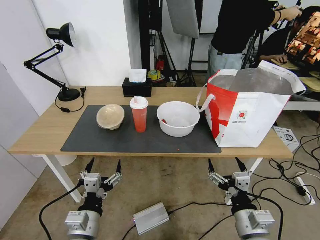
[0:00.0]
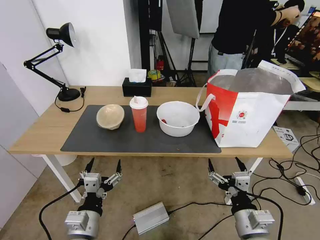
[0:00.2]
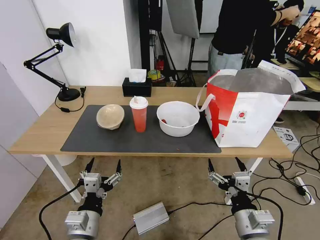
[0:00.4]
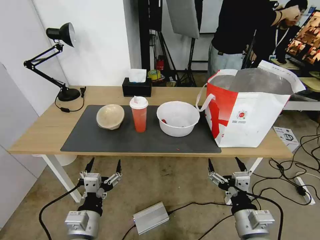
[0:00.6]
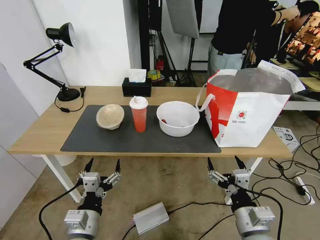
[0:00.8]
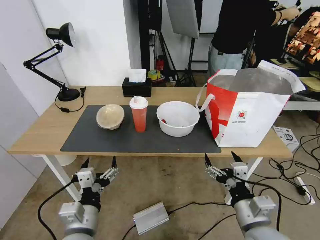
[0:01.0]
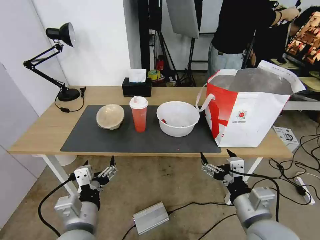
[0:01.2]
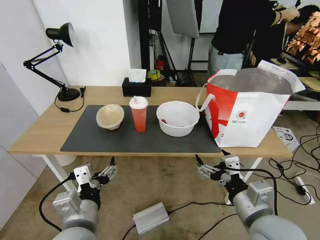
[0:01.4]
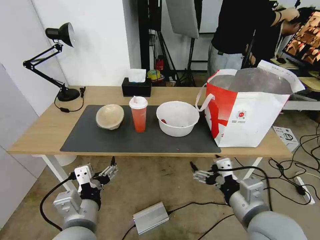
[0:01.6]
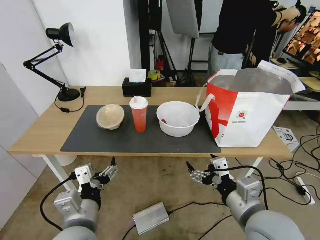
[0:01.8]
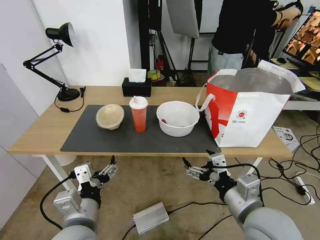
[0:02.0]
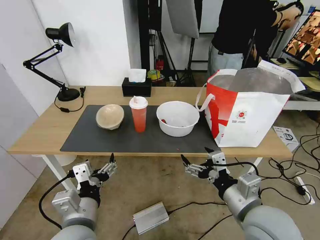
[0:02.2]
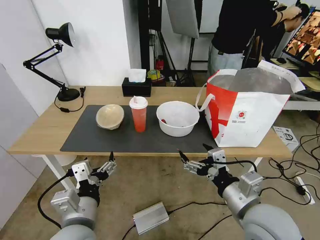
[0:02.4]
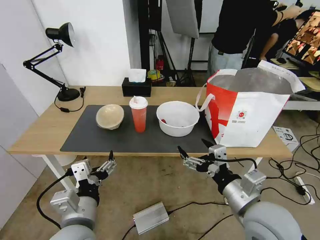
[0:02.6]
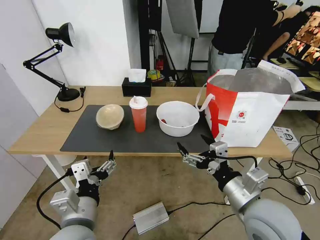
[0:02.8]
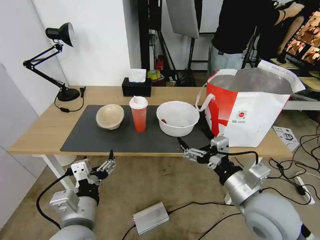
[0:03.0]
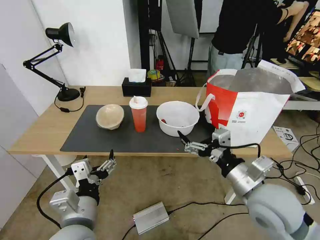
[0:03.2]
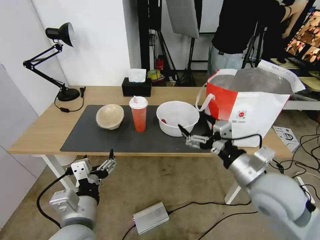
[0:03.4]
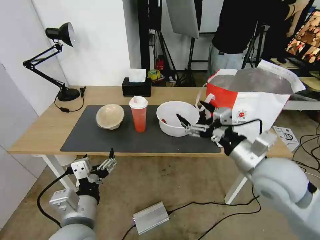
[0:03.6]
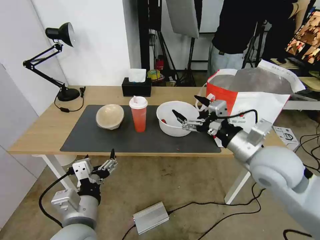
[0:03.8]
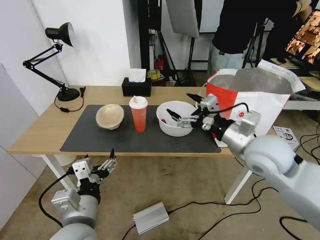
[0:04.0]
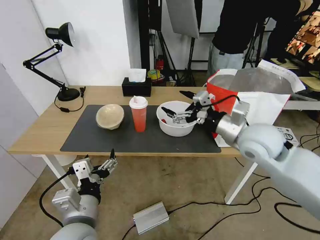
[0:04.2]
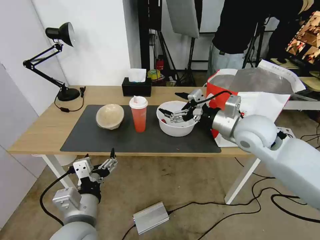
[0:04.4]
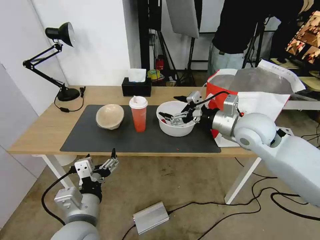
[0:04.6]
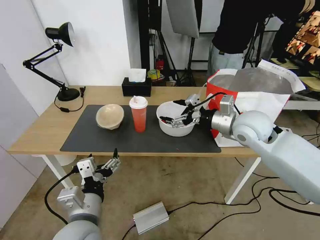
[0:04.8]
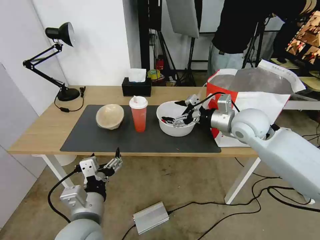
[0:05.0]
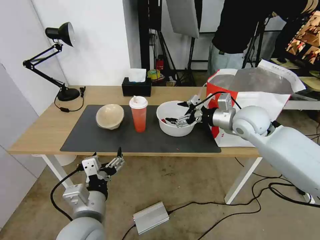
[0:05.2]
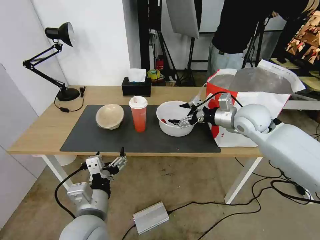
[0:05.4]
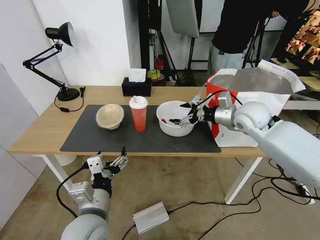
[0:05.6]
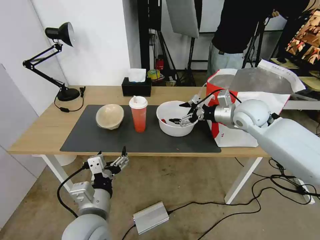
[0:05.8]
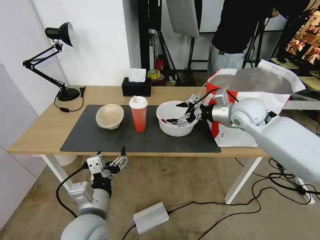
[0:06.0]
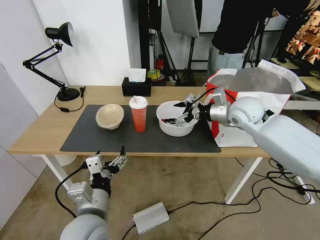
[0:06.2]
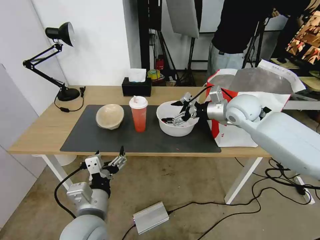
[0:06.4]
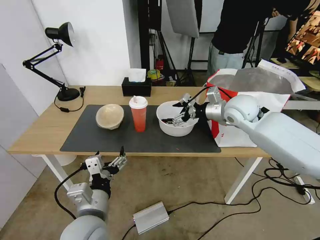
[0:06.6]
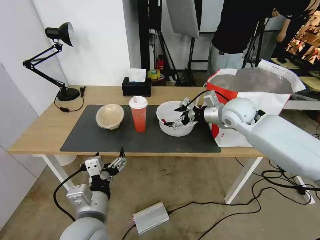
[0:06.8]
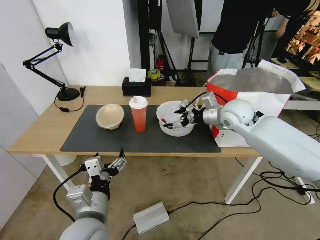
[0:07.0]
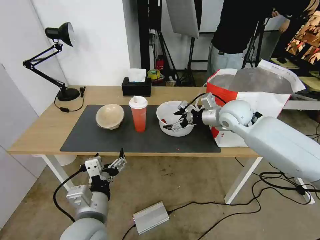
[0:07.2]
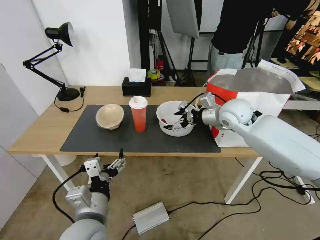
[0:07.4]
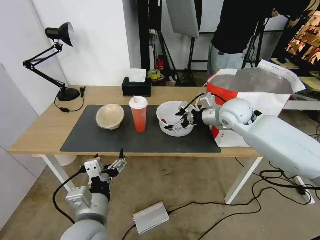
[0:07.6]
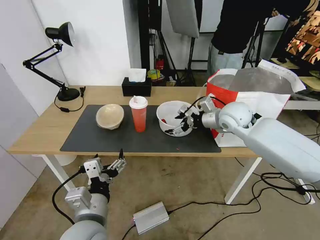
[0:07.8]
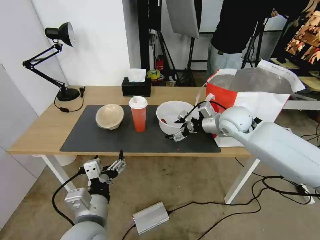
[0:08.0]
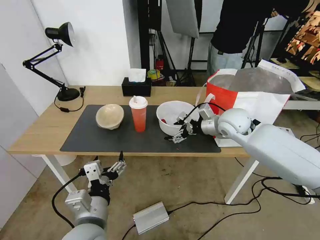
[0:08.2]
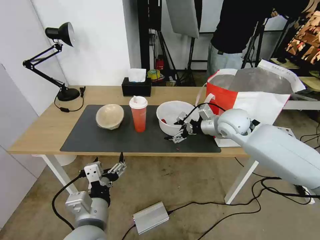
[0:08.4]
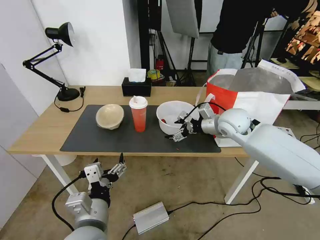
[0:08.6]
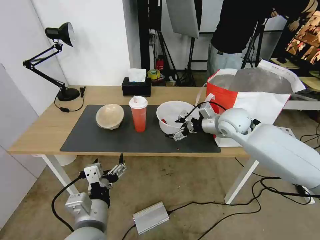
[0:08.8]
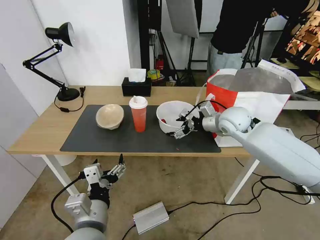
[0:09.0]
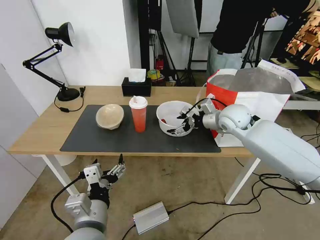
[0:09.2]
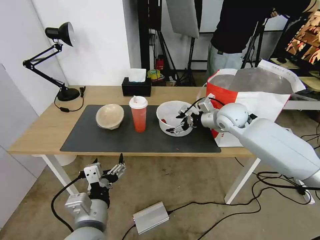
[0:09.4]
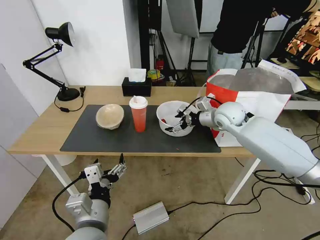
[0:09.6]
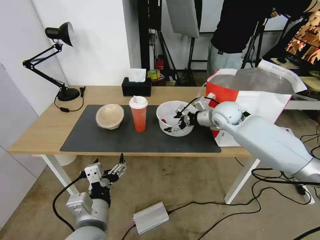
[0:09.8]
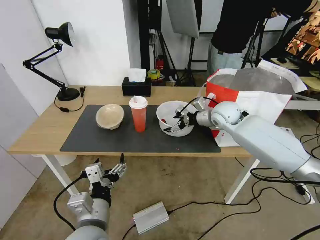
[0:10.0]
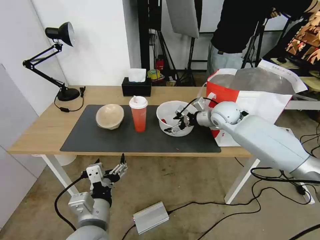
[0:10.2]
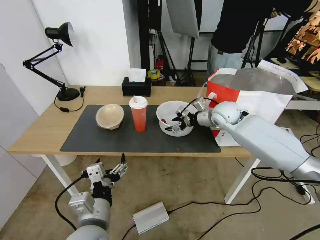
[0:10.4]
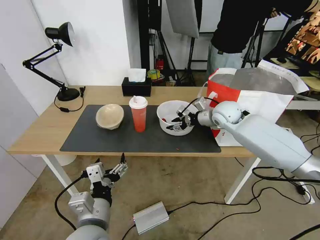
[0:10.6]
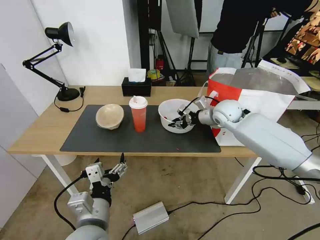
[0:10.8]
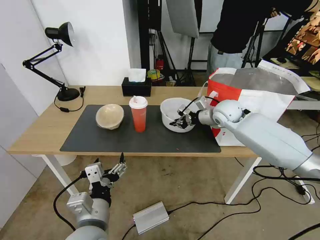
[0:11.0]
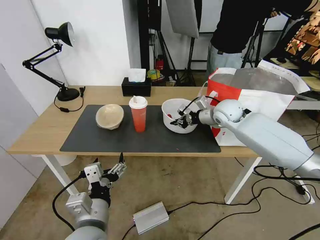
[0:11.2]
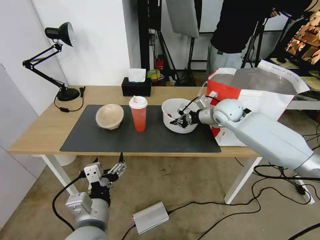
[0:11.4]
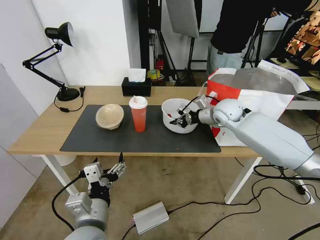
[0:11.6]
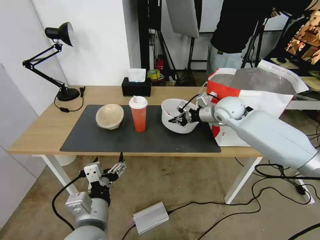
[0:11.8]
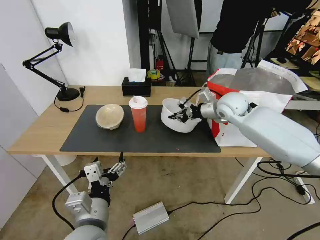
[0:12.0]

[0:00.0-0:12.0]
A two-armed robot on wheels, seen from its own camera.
Task of the whole recording: Pick up the trash from the table and place it into the takeout bag.
0:03.0 to 0:04.4: The right gripper travels forward and upward by roughly 20 cm.
0:04.4 to 0:06.0: The right gripper heads forward, covering roughly 10 cm.
0:06.0 to 0:09.0: There are only small adjustments of the grippers.
0:09.0 to 0:10.4: The grippers stay close to where they were, moving slightly.
0:10.4 to 0:12.0: The right gripper closes up.

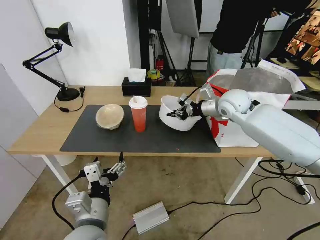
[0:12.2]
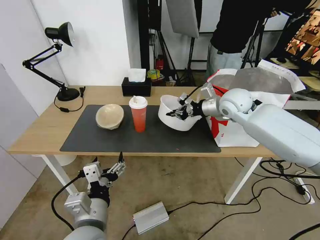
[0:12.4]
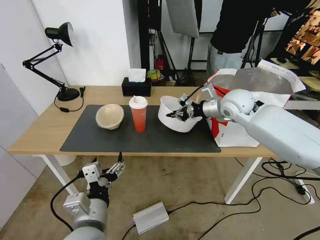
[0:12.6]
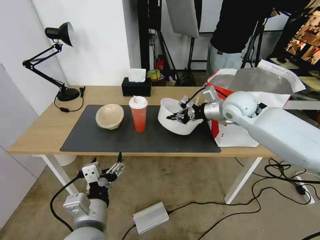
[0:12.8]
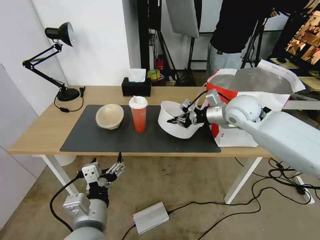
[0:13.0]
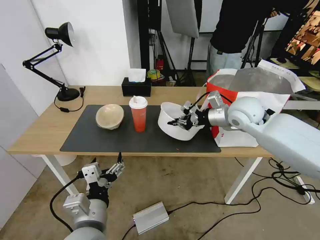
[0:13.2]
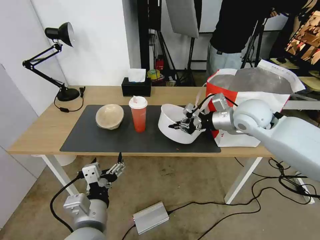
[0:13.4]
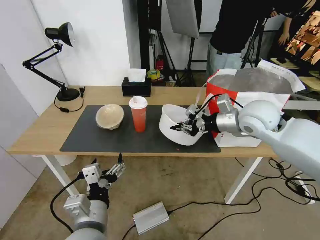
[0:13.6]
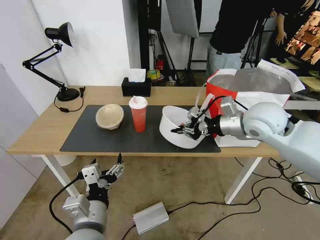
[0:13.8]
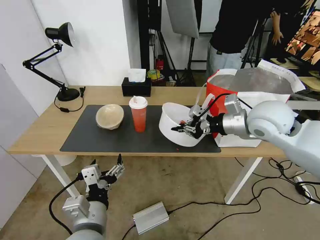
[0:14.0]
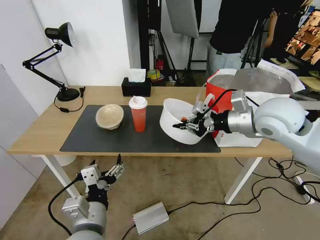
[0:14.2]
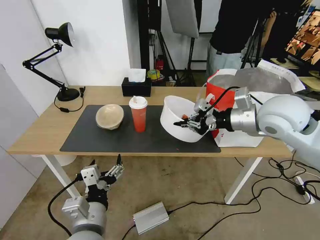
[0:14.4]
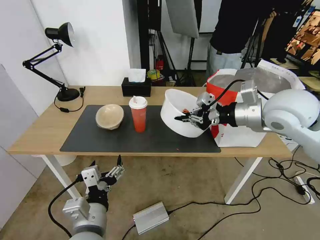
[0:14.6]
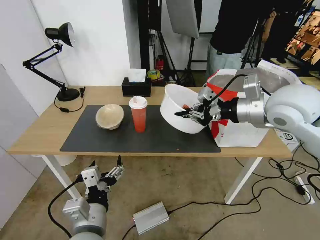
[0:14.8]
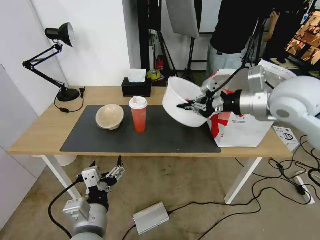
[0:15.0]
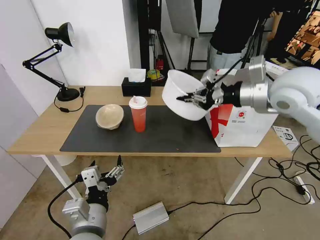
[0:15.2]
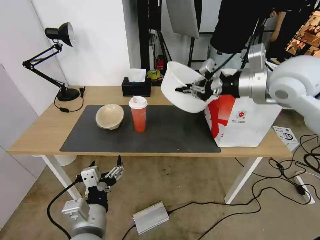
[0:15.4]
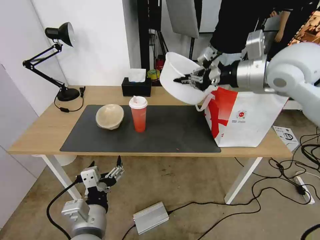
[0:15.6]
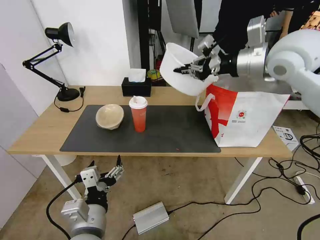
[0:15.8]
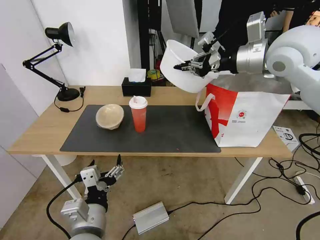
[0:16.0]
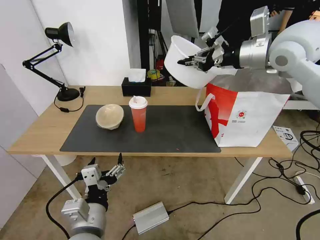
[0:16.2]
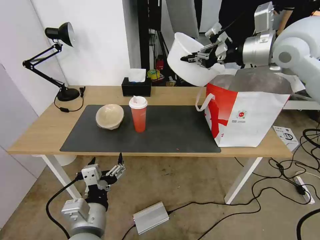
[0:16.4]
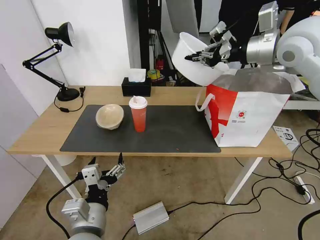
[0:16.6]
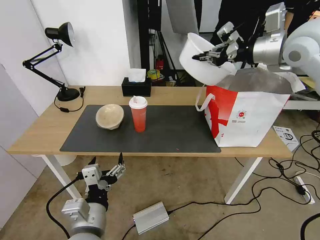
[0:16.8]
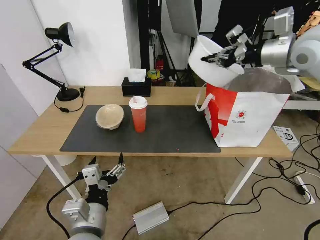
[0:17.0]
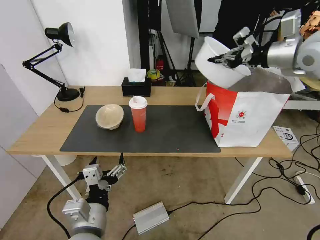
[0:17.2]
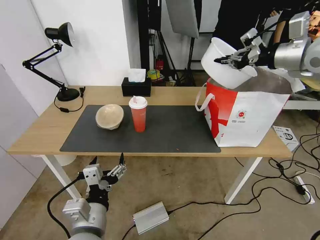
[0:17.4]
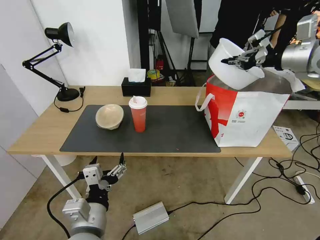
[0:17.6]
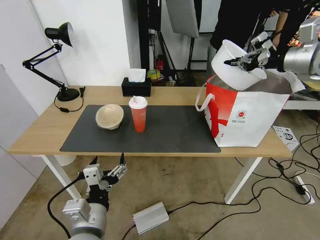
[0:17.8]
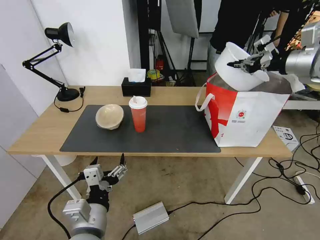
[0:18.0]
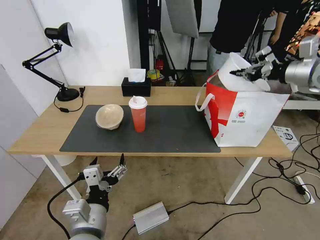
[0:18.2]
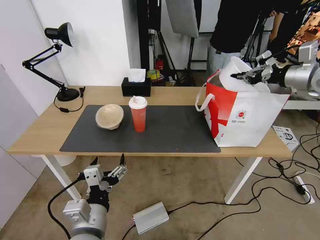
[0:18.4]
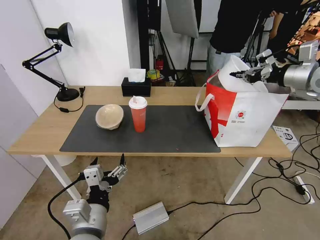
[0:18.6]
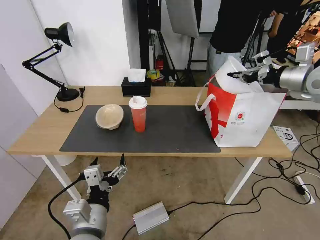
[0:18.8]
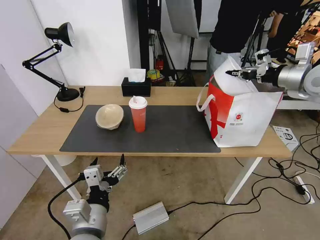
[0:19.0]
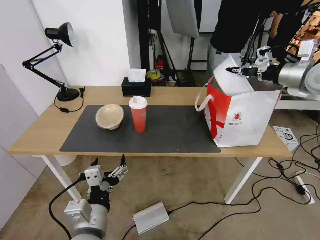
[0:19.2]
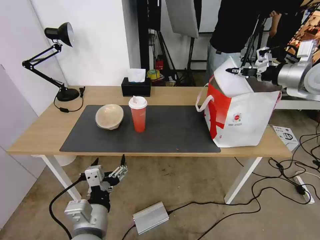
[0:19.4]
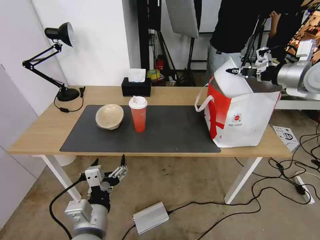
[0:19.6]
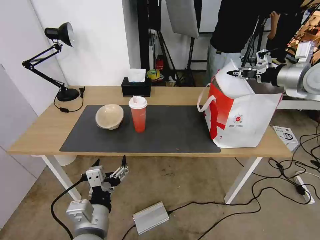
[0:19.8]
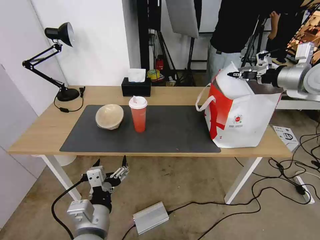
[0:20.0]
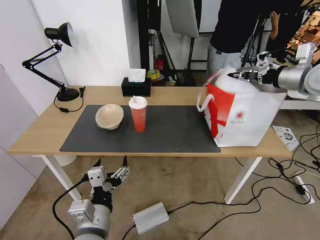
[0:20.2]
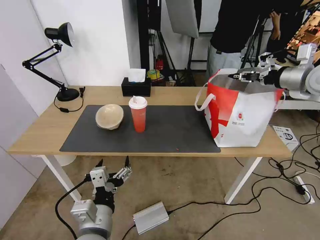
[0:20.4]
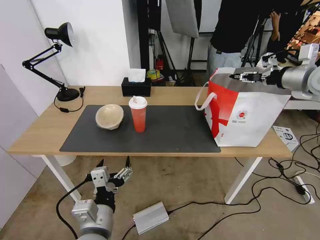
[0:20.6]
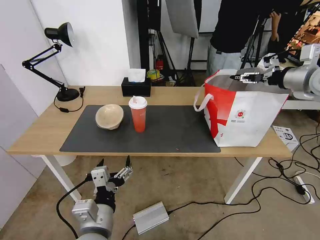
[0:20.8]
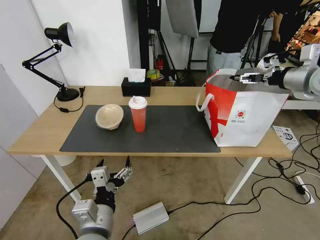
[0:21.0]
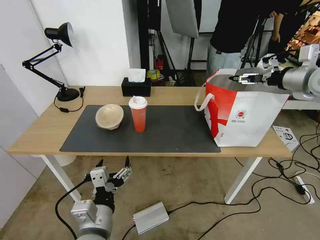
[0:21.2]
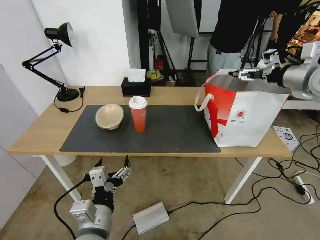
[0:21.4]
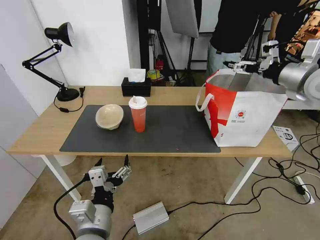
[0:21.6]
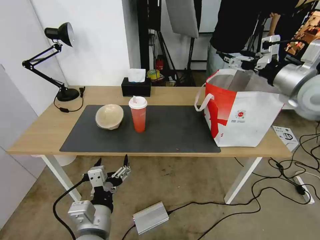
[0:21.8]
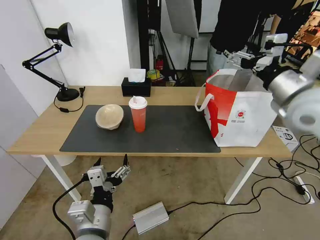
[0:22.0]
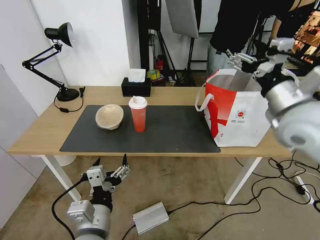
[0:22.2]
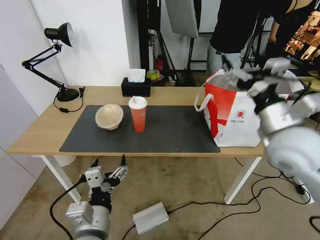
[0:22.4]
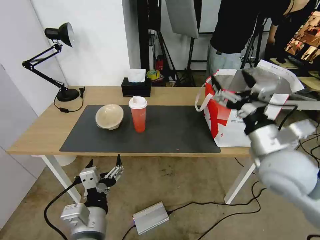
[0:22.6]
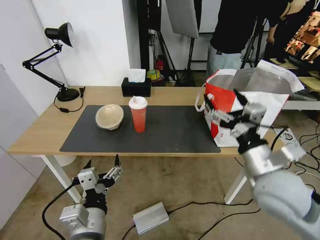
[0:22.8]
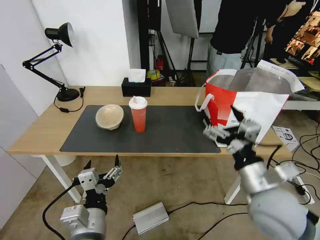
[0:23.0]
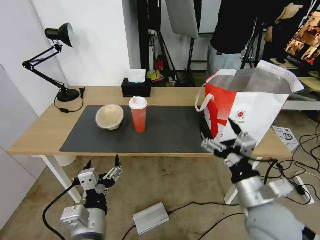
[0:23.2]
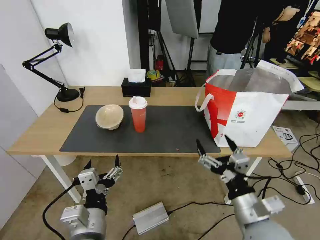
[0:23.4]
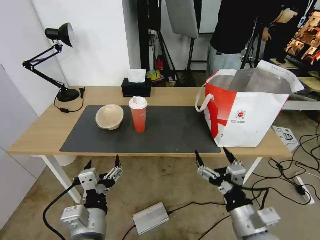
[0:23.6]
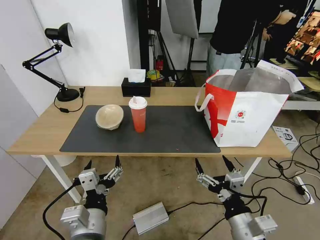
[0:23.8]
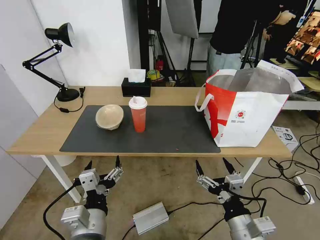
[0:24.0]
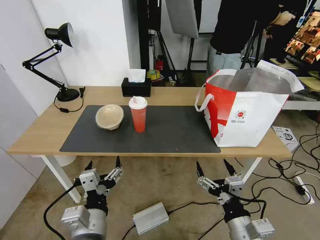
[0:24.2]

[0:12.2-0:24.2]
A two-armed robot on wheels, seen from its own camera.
Task of the whole recording: Pick up the trash from the table and place it into the takeout bag.
0:12.2 to 0:13.8: The right gripper heads backward, covering approximately 10 cm.
0:13.8 to 0:15.2: The right gripper goes about 10 cm upward.
0:15.2 to 0:16.6: The right gripper heads upward and forward, covering about 10 cm.
0:16.6 to 0:18.2: The right gripper is displaced to the right and downward by roughly 15 cm.
0:19.8 to 0:21.2: The right gripper opens its fingers.
0:21.2 to 0:22.6: The right gripper is displaced backward, to the left and downward by about 30 cm.
0:22.6 to 0:24.2: The right gripper goes about 20 cm downward and backward.
